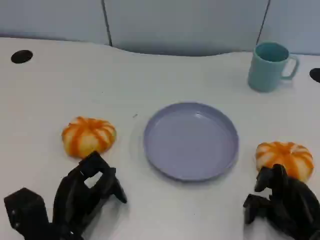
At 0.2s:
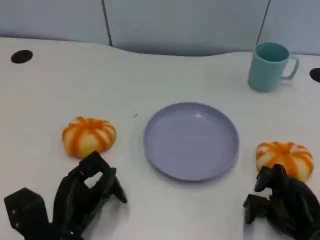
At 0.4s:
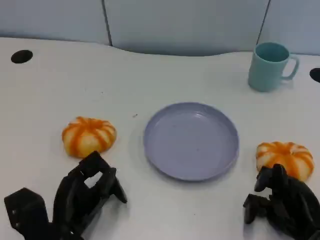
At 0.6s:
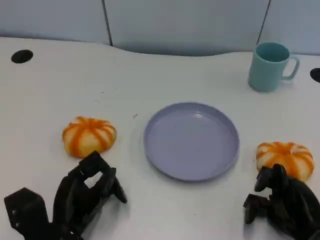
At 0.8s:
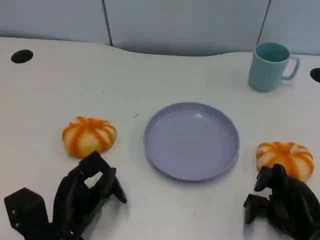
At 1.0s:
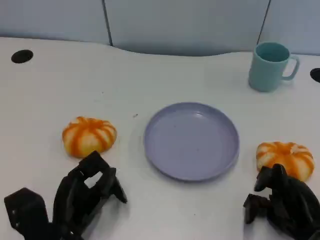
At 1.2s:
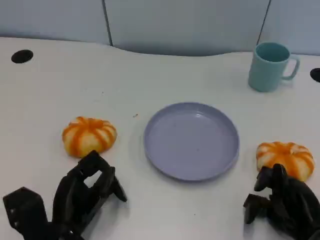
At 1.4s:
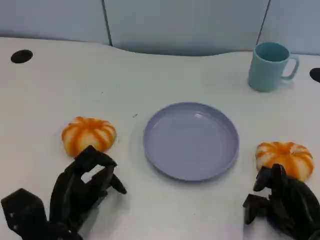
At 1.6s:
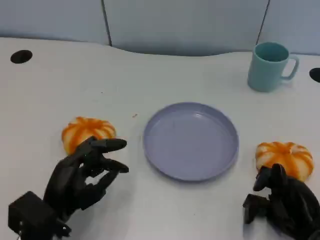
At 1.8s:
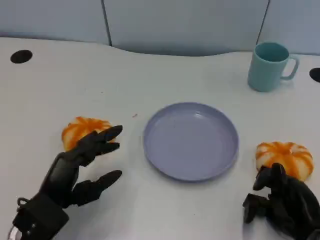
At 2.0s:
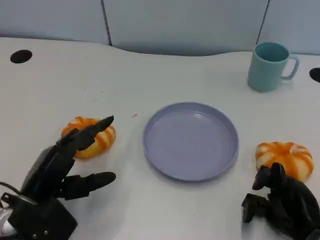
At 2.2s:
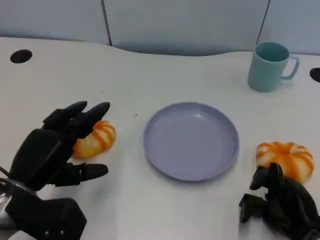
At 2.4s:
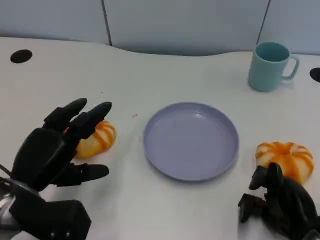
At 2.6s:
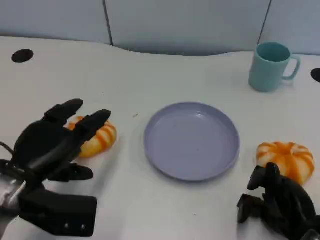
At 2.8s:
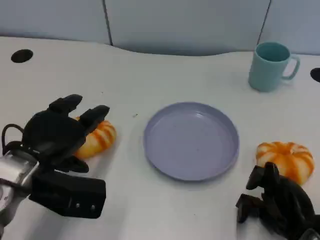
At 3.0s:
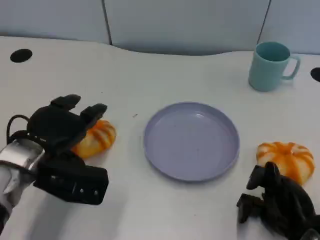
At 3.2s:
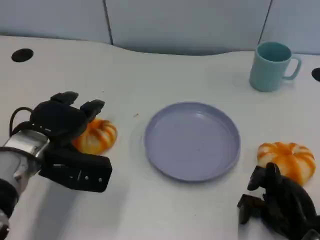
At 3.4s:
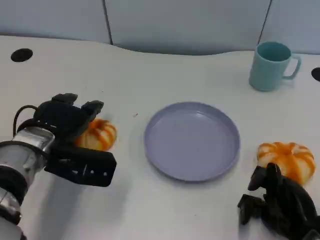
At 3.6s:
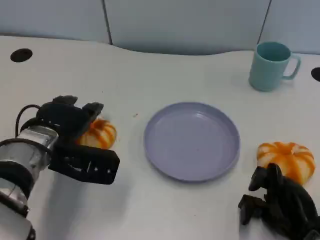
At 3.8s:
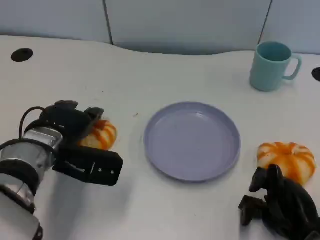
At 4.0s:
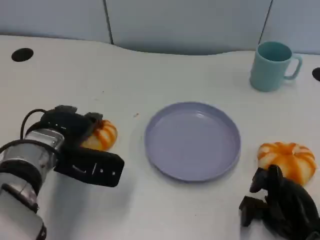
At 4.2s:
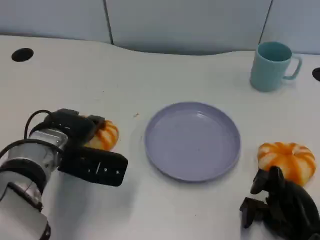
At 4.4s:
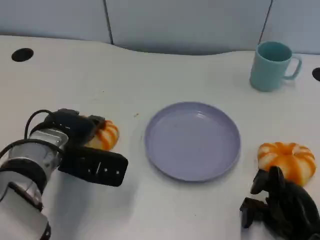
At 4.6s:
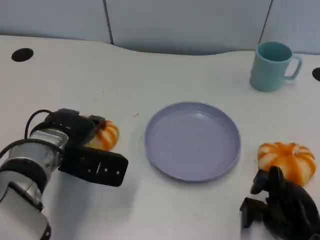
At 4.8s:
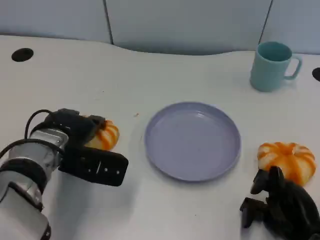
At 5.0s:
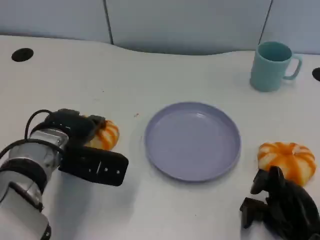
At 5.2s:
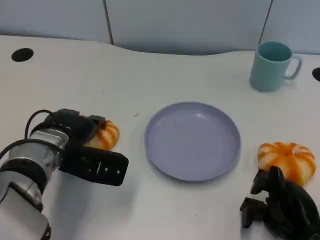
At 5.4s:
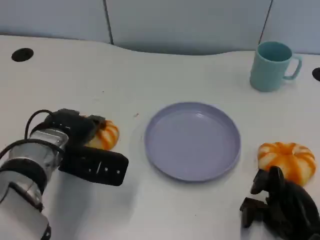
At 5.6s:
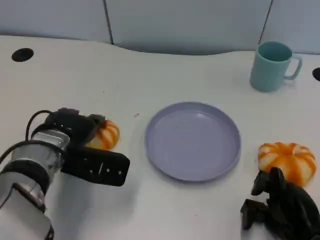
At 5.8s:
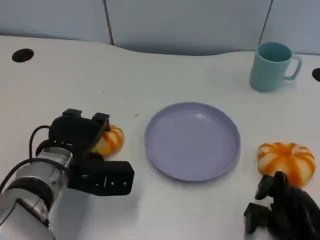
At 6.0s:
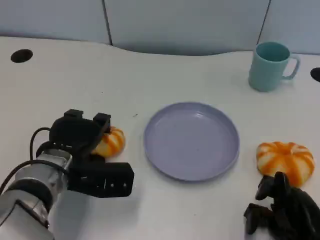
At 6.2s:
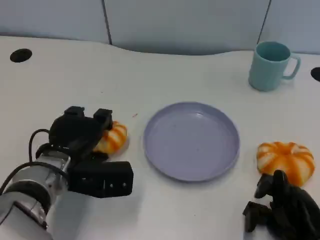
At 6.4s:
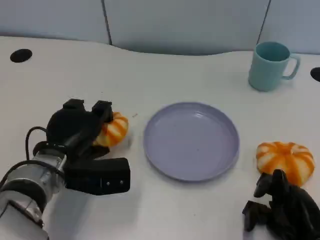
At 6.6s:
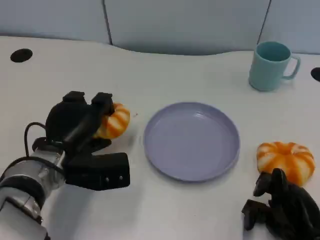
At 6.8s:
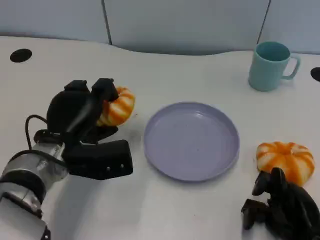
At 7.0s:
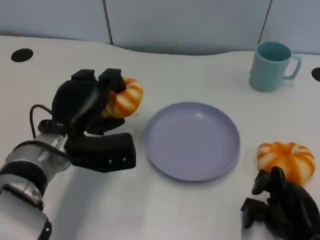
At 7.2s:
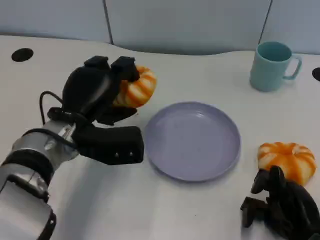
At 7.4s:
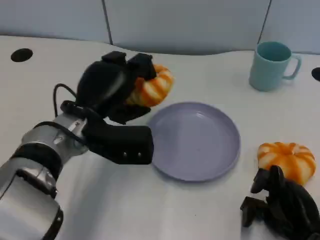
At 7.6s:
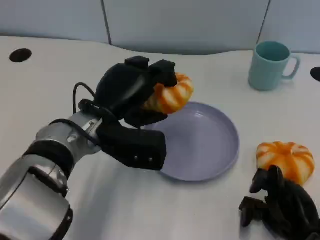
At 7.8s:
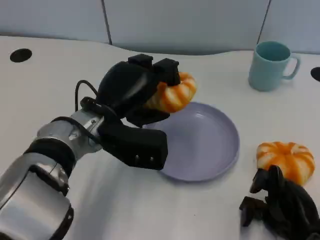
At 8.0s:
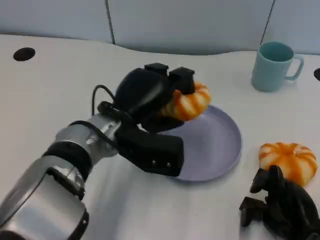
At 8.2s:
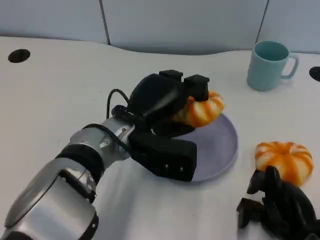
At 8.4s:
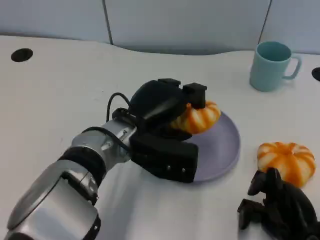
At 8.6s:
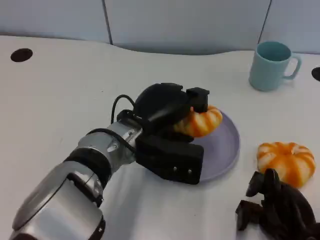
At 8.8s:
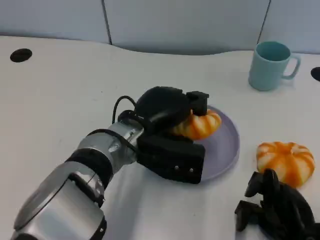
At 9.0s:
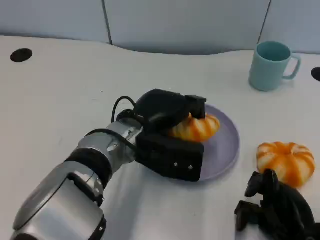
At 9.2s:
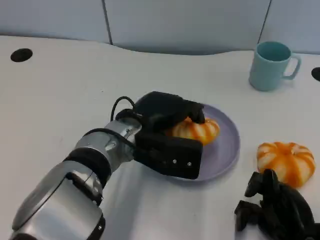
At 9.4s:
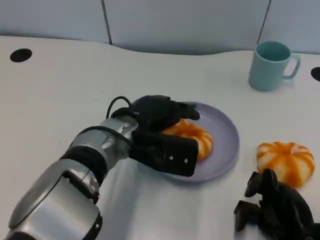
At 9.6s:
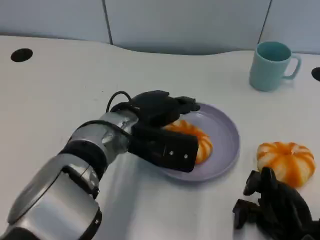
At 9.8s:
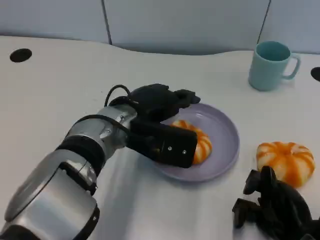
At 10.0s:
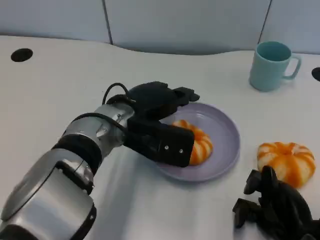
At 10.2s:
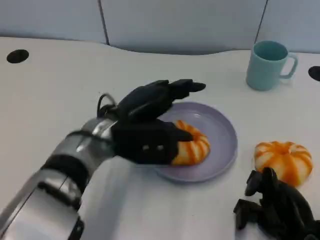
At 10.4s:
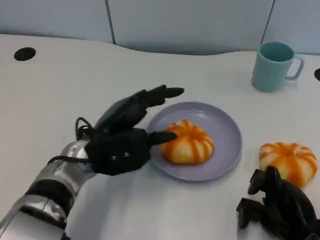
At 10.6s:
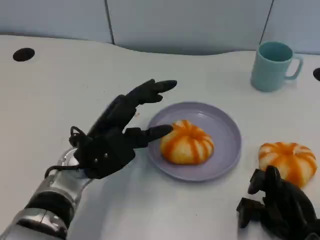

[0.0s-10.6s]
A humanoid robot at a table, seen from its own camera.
Task of the whole recording: Grasp the bread from the table and place it into the plate.
1.6s to 3.0s: The left hand is displaced forward and upward by some 10 cm.
3.0s to 4.6s: There are only small adjustments of the hands.
6.0s to 7.6s: The left hand travels upward and to the right by roughly 10 cm.
7.6s to 9.0s: The left hand shifts by approximately 5 cm.
9.0s to 10.6s: The left hand shifts roughly 5 cm to the left.

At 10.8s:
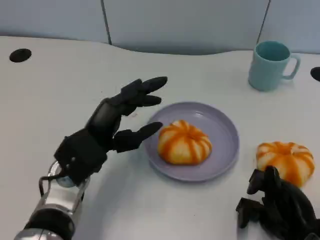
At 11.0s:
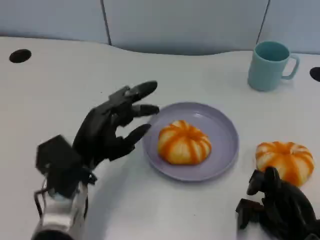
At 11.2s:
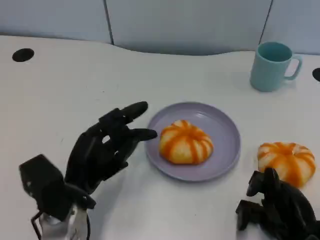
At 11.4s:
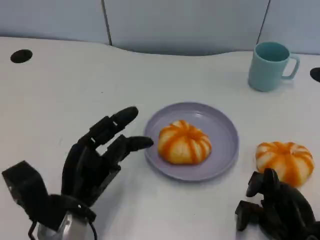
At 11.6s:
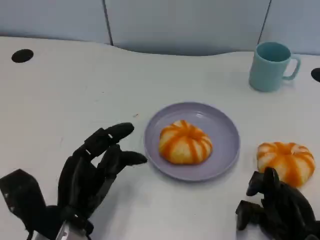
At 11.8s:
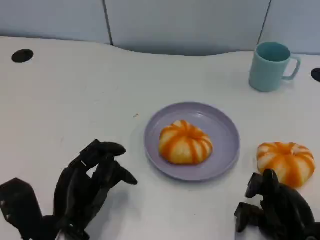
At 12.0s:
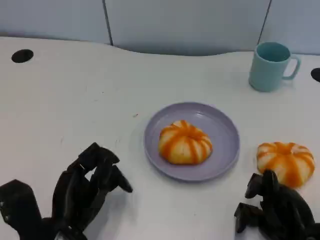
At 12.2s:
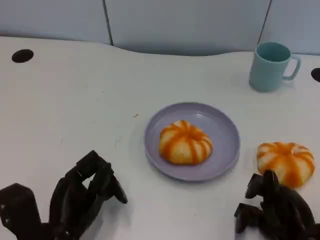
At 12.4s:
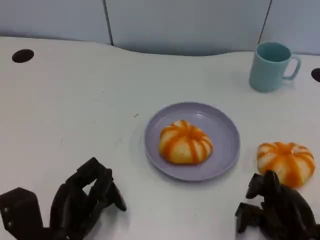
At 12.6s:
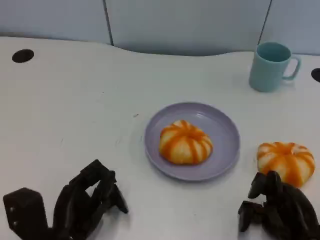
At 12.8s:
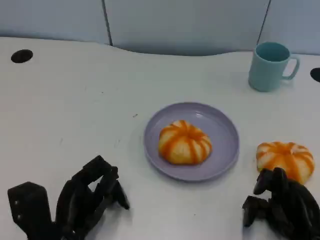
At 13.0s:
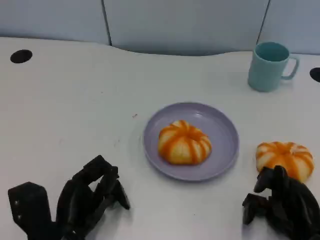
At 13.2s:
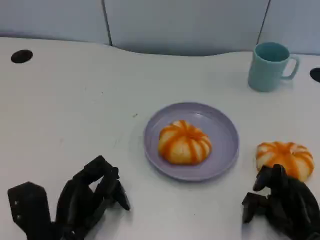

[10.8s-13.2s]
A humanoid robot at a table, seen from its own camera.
Task of the whole recording: Grasp the bread from the table and place it into the plate.
10.8s to 12.0s: The left hand shifts approximately 10 cm backward and downward.
12.0s to 13.2s: The hands move only a little.

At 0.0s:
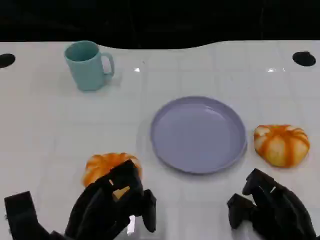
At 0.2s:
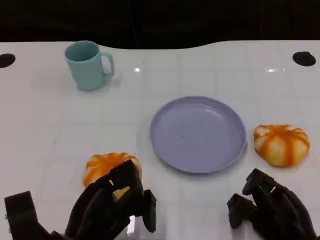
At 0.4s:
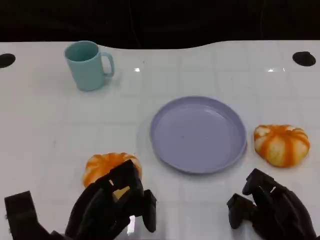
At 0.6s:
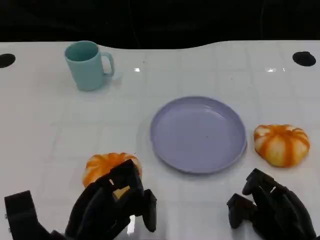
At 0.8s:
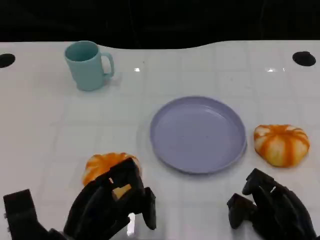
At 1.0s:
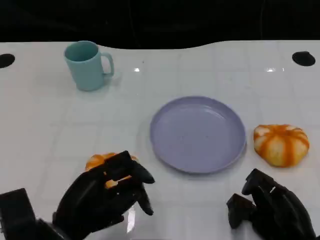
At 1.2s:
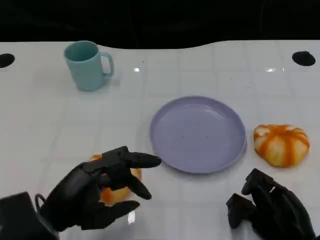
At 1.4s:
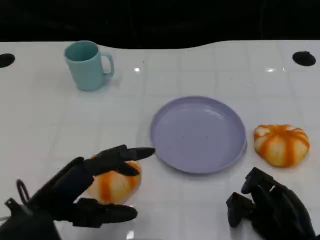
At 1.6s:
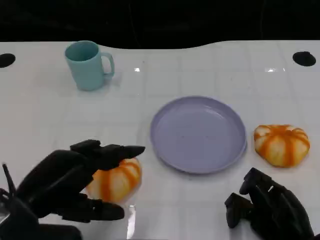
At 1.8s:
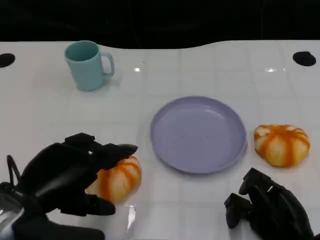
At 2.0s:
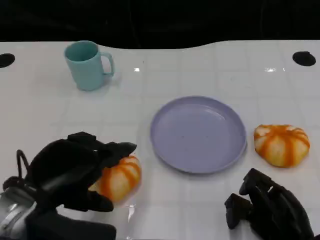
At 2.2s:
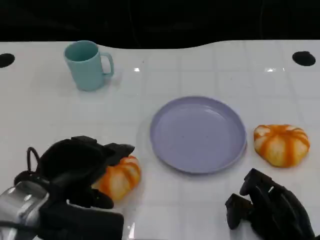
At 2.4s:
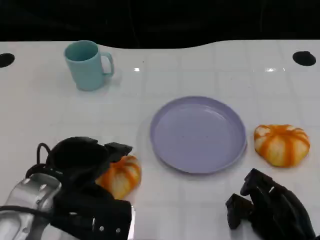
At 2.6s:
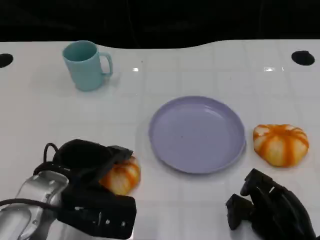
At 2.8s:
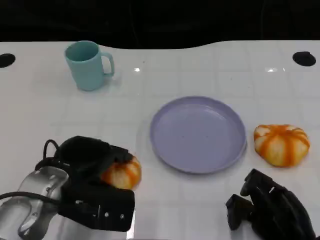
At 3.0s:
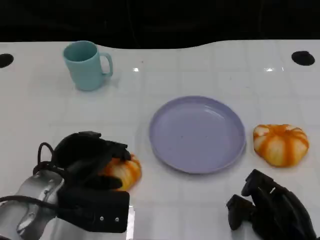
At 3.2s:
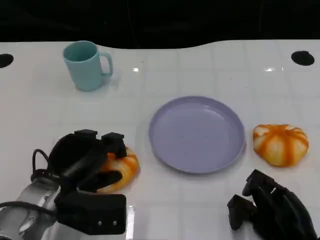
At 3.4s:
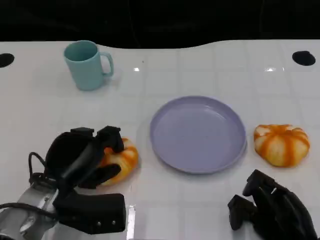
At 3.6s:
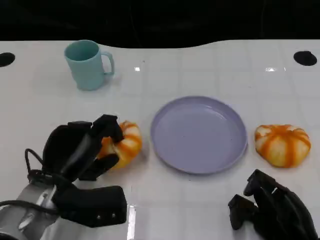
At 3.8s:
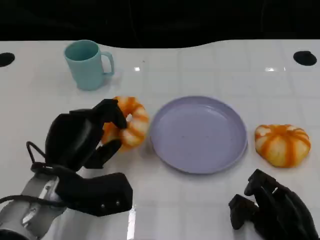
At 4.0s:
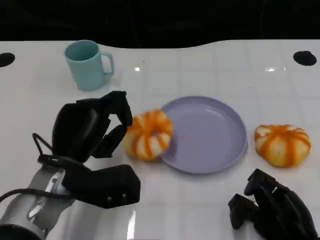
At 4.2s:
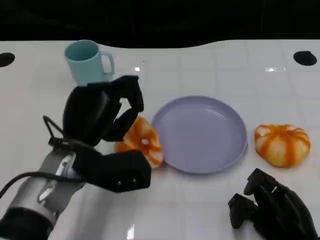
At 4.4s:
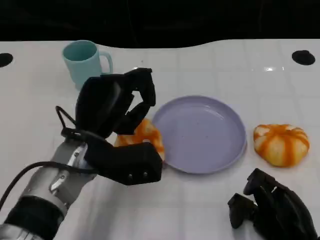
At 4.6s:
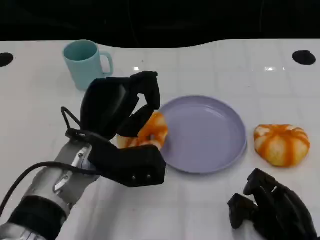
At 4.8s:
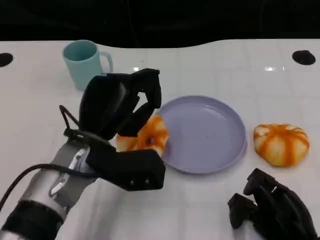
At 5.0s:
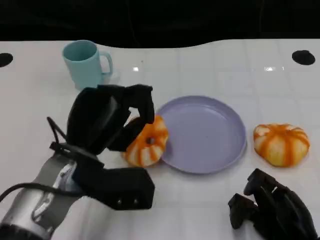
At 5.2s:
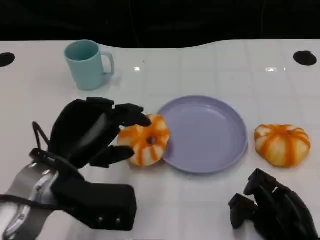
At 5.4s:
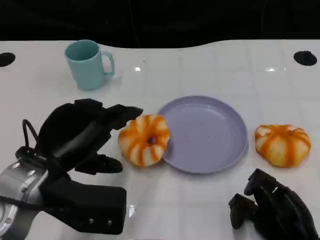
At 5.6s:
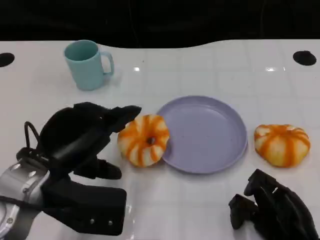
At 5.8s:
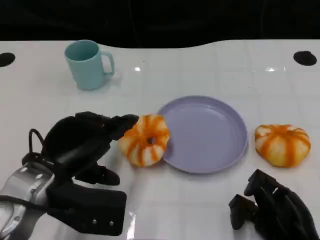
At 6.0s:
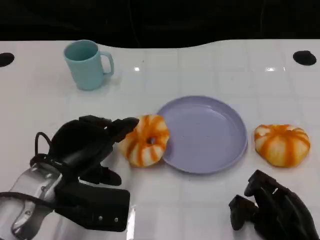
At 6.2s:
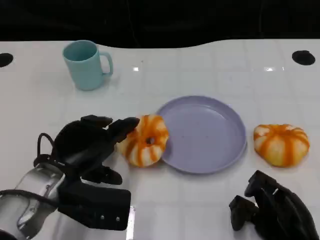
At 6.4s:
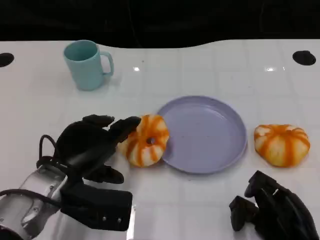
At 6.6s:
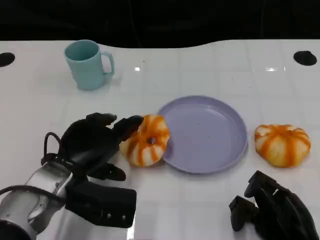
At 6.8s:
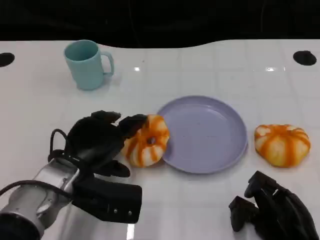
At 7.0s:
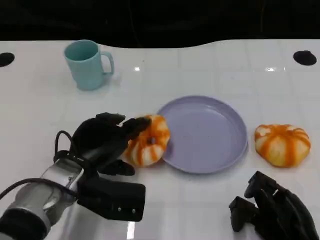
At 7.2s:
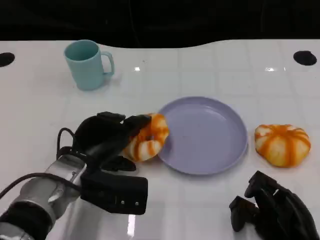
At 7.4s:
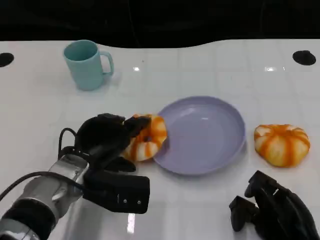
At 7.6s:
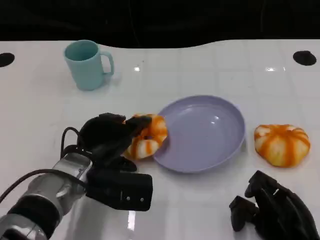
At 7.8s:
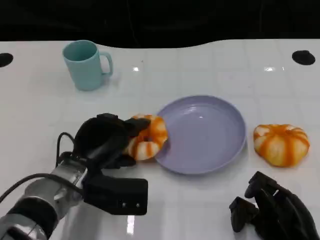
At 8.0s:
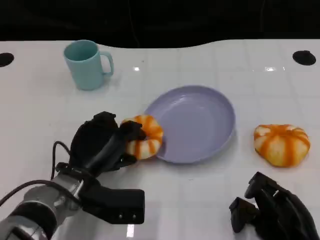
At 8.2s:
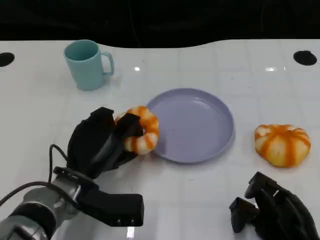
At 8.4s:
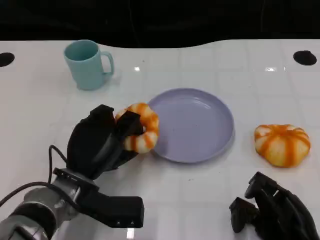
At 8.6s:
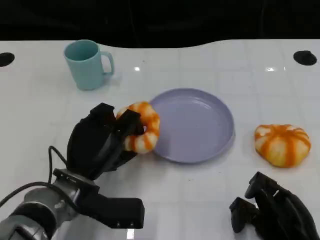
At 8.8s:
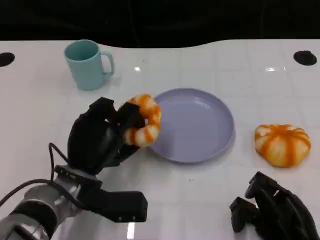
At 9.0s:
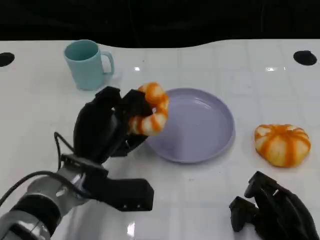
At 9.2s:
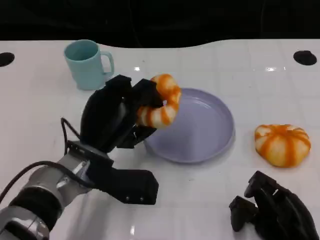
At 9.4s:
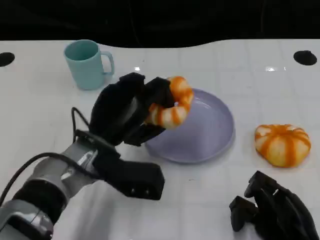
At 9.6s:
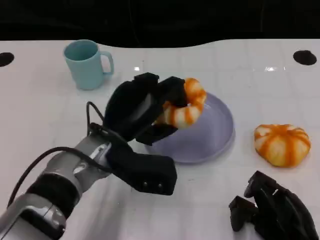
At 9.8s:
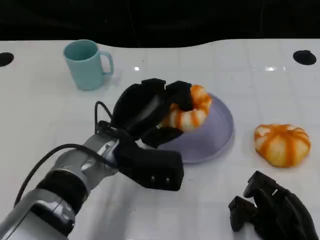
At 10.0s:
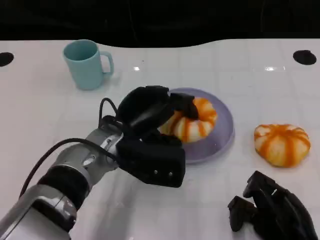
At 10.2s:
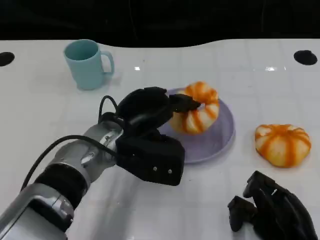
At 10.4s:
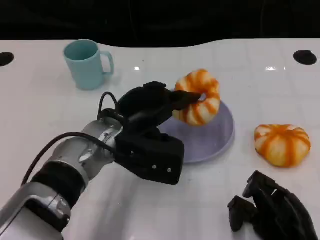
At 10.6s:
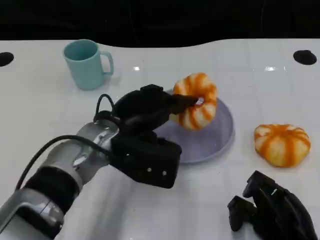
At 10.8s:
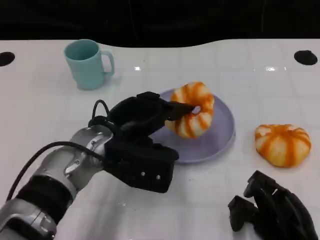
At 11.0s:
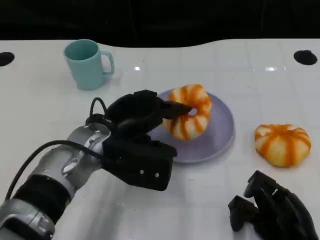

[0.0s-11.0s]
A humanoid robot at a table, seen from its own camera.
Task of the whole recording: Grasp the bread from the table and place it into the plate.
0.0s to 1.6s: The left hand moves upward and to the left, approximately 10 cm.
1.6s to 3.2s: The left hand goes some 10 cm downward and forward.
3.2s to 4.8s: The left hand is displaced upward and to the right by some 10 cm.
4.8s to 6.2s: The left hand ends up approximately 5 cm from where it was.
6.2s to 7.8s: The left hand ends up about 5 cm from where it was.
7.8s to 9.4s: The left hand moves upward, approximately 5 cm.
